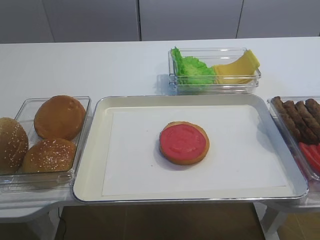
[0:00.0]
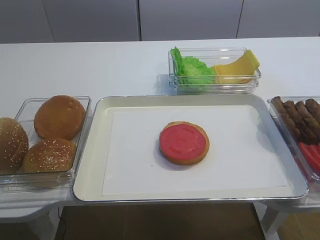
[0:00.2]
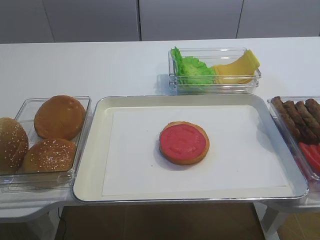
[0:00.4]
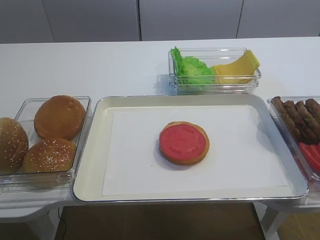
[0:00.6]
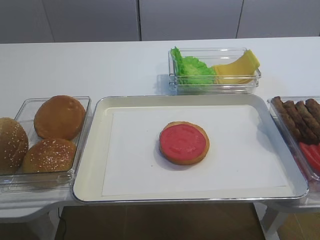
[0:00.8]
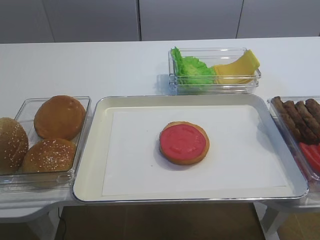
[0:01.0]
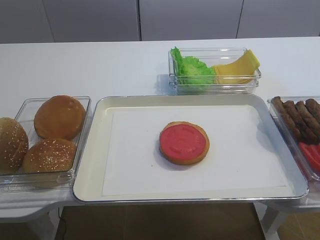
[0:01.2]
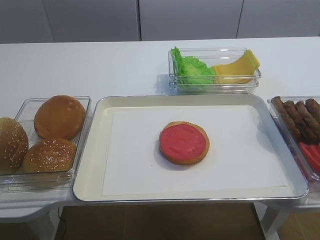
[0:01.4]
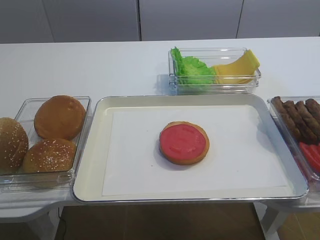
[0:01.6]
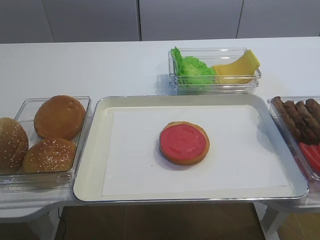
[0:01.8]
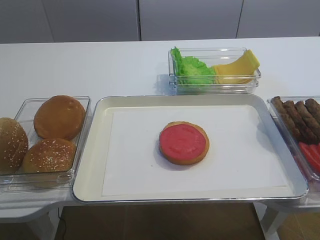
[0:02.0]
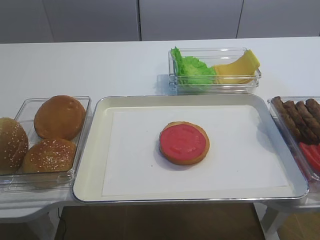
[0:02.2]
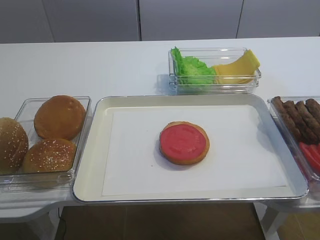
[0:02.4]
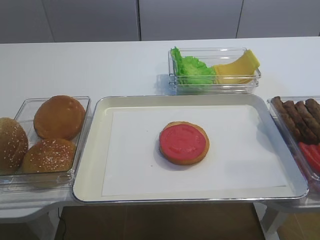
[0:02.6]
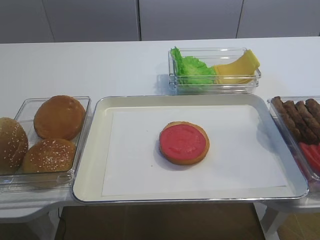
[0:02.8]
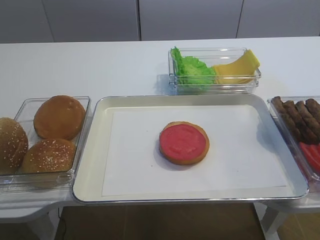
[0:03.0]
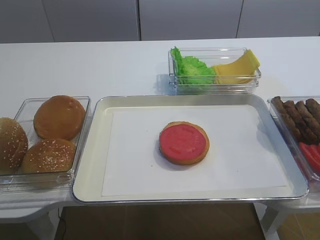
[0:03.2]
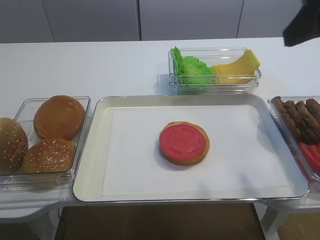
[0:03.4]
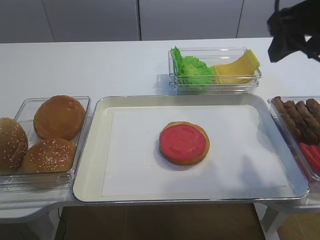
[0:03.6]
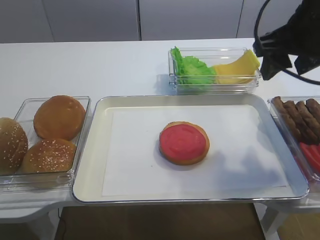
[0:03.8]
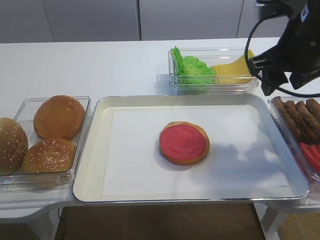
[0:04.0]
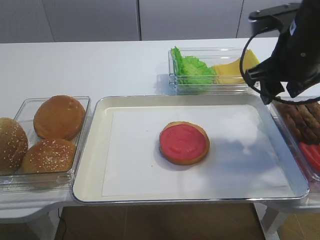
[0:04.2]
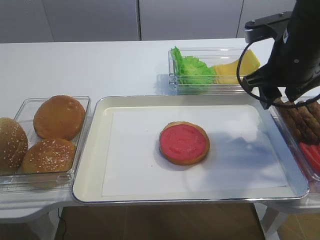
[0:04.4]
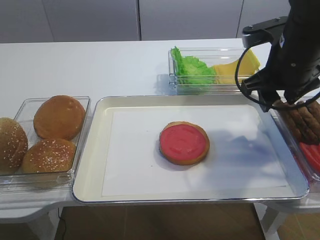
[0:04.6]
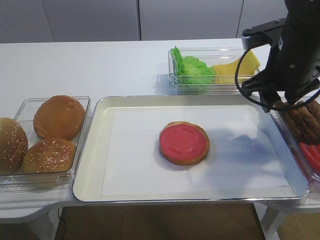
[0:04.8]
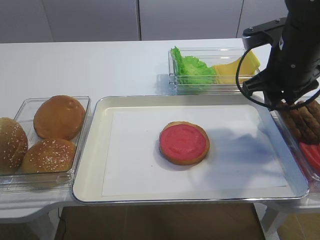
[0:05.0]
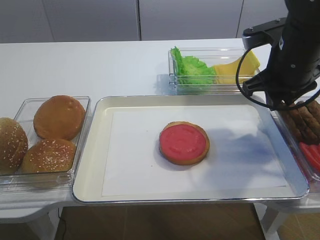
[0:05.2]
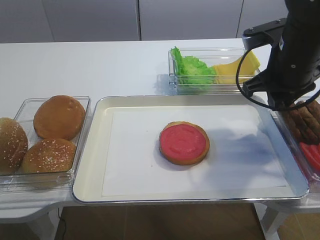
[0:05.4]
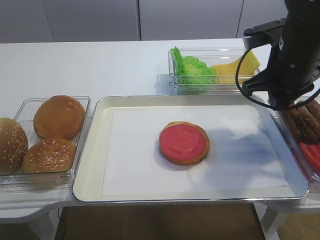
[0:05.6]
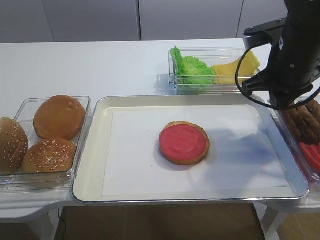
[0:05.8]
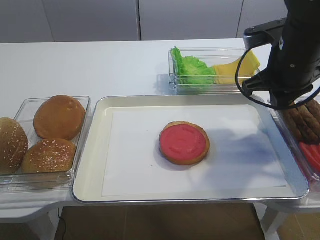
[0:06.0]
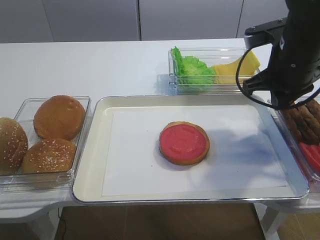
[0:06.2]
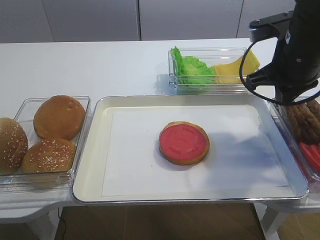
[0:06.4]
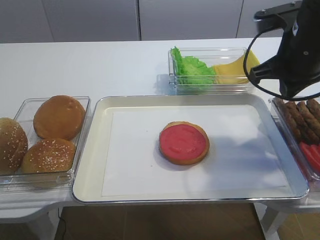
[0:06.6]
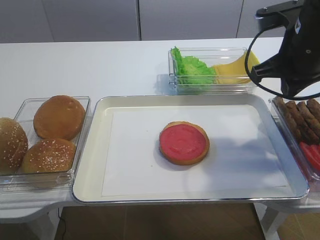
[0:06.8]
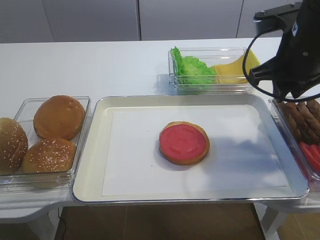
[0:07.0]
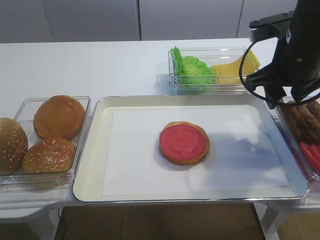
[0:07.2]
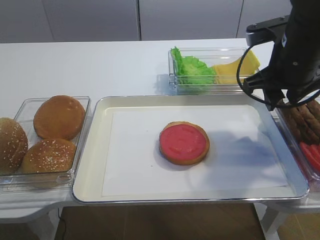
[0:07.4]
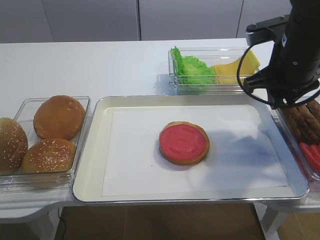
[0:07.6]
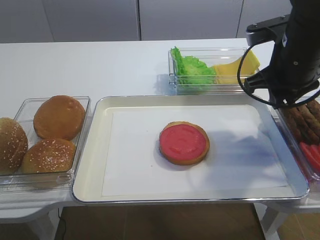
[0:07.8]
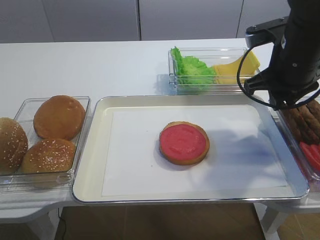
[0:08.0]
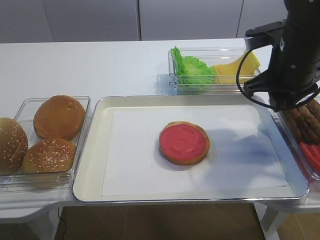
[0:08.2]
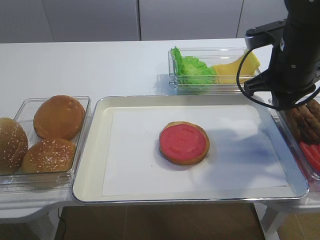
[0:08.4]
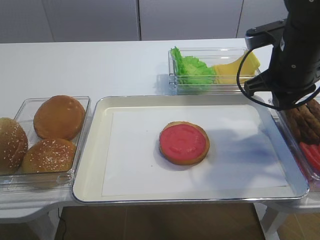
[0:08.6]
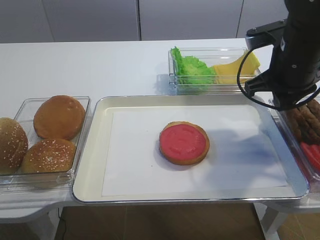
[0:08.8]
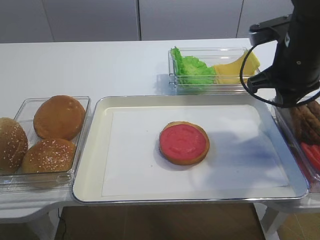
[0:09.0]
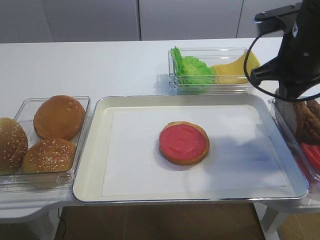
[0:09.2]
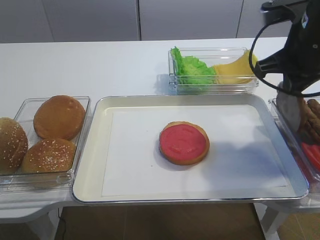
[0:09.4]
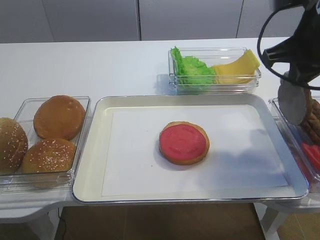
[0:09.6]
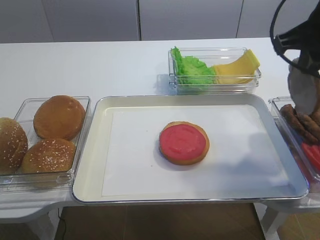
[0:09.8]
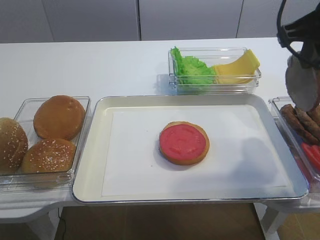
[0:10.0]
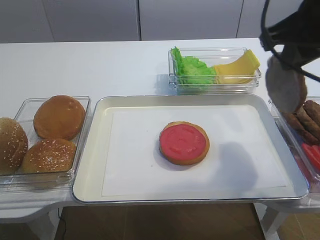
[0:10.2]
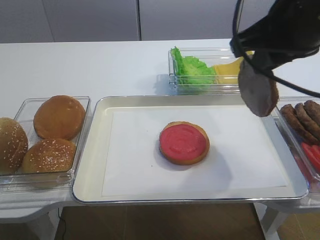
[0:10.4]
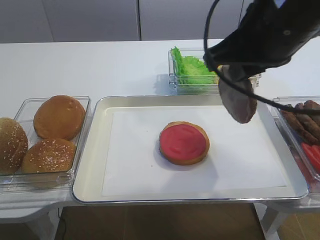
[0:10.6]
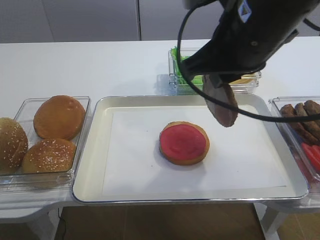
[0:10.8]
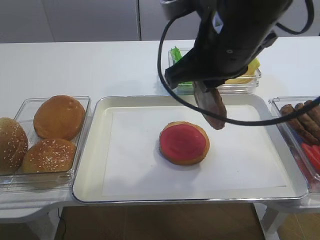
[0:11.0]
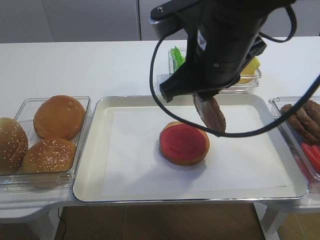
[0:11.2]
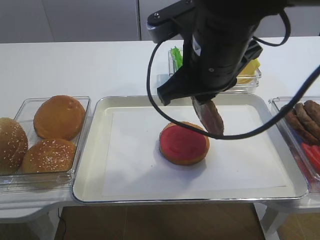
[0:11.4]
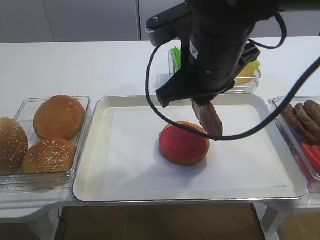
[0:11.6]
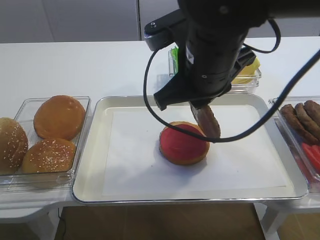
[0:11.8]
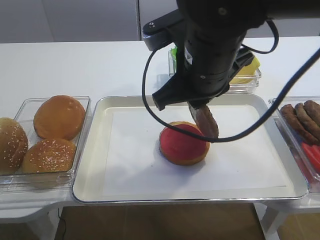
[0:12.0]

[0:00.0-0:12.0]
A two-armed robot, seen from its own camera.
Step, 0:00.0 to 0:09.4: Pick up the cutlet with the right gripper.
0:03.0 to 0:04.4: The right gripper moves forward and downward, about 20 cm.
0:04.4 to 0:06.0: The right gripper closes its fingers.
0:06.0 to 0:07.6: The grippers make only small movements.
0:07.6 to 0:09.0: Both grippers stay put.
0:09.0 to 0:10.4: The right gripper goes roughly 10 cm upward and backward.
0:10.4 to 0:12.0: The right gripper shifts some 10 cm to the left and downward.

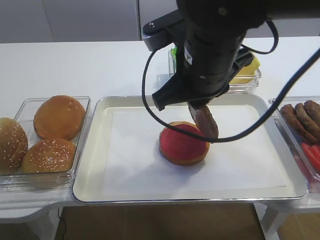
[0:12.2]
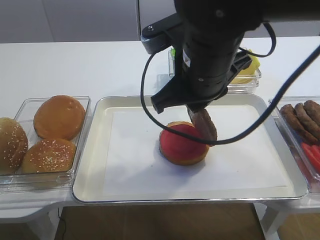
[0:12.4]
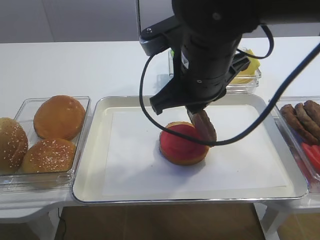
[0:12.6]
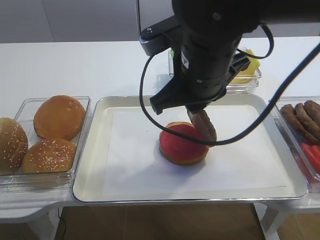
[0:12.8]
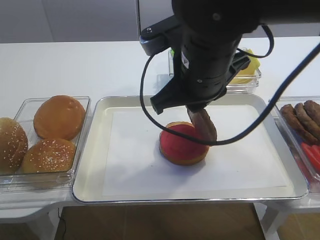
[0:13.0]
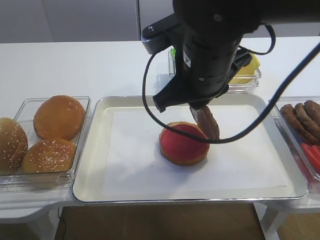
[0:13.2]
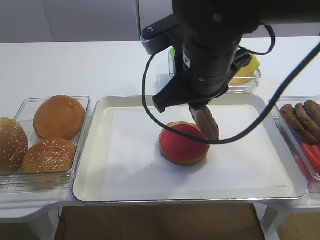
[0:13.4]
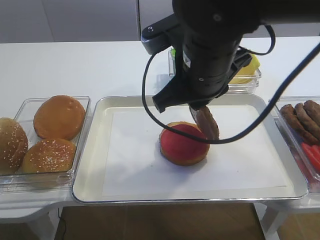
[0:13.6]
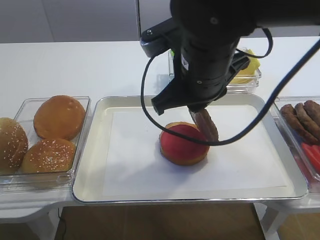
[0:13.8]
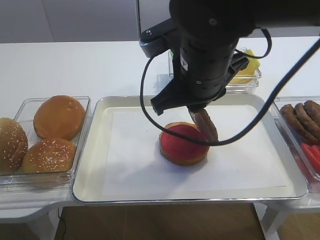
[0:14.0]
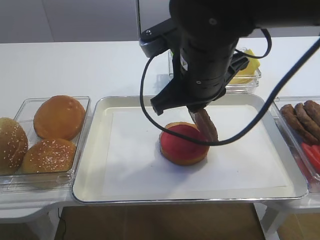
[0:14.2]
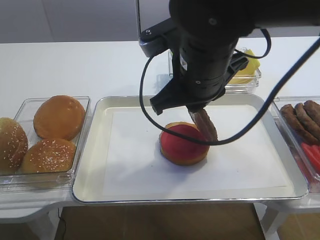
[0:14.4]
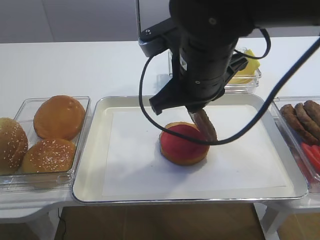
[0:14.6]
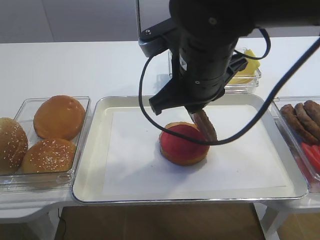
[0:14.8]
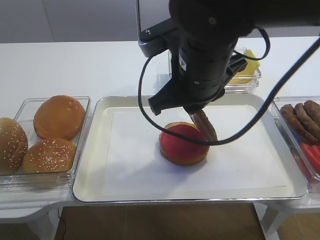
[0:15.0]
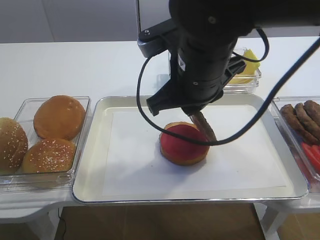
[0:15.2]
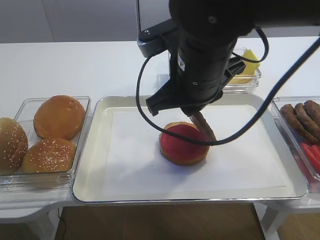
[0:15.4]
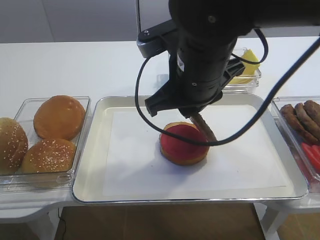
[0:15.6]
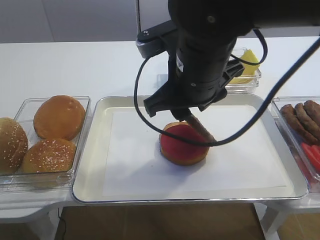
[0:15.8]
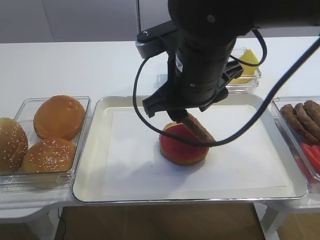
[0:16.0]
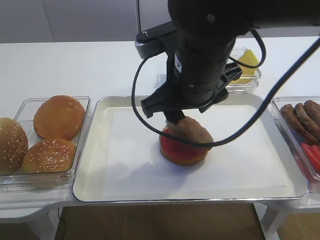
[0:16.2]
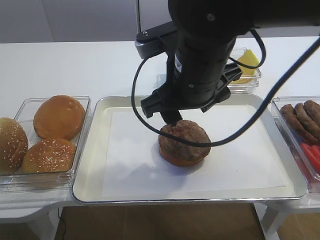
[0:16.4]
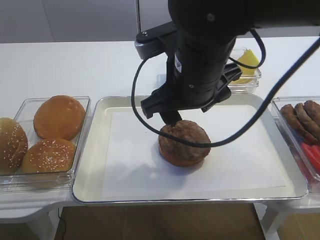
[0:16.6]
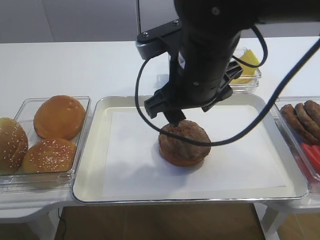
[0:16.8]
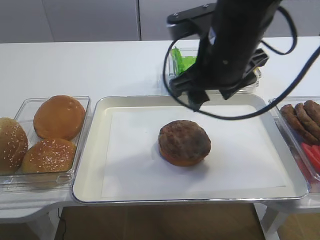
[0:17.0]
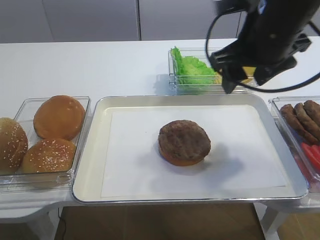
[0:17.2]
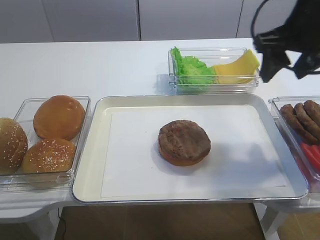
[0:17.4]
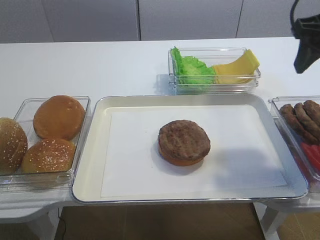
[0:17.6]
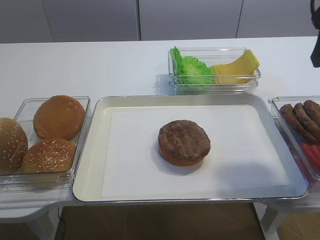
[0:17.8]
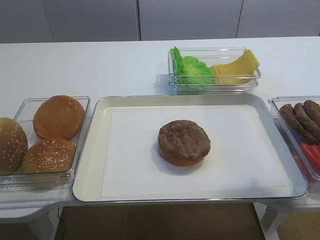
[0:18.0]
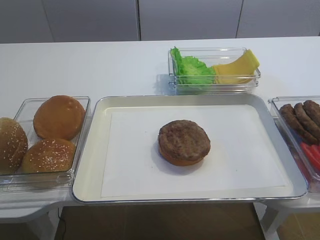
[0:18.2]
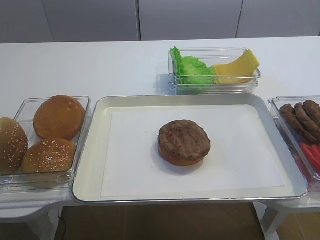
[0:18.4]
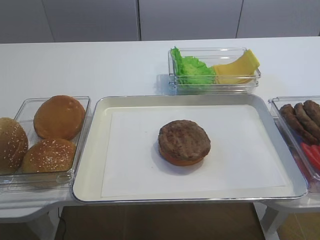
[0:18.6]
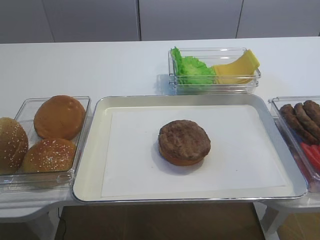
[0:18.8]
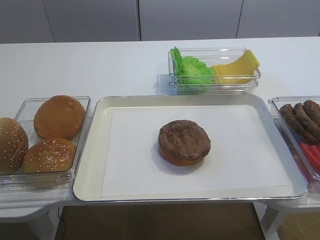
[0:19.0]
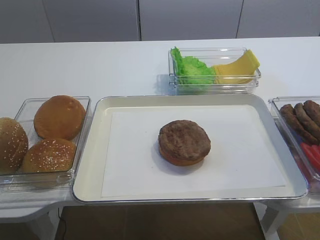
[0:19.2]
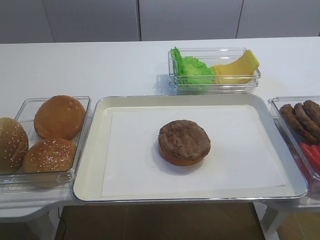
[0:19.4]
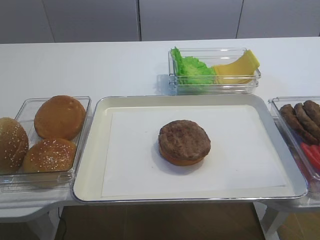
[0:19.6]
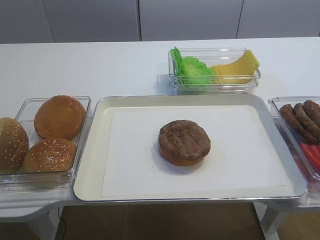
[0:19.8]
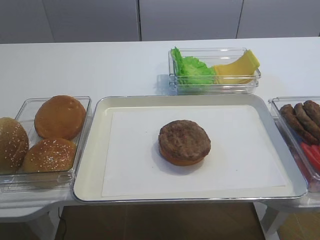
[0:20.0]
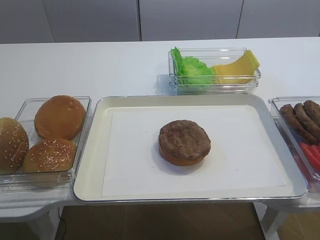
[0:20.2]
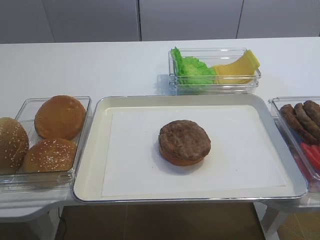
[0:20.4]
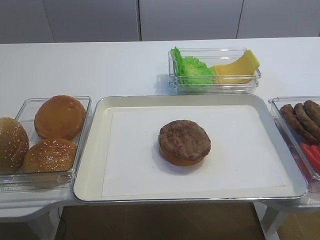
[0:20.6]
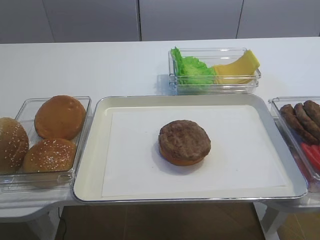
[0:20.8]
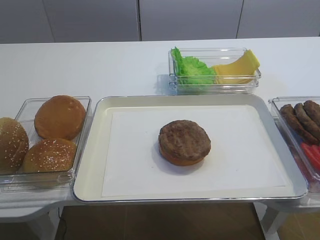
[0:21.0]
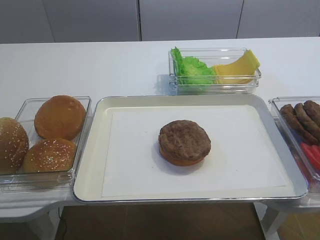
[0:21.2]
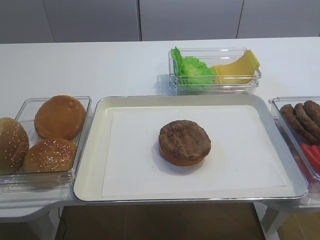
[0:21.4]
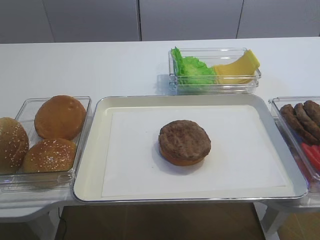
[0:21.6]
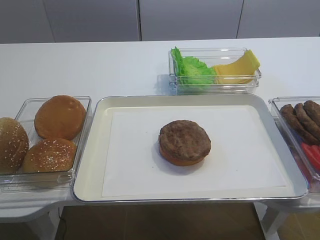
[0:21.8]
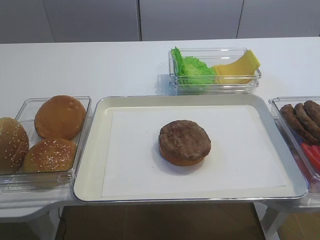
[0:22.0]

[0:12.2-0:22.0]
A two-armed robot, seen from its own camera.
Step, 0:12.2 to 0:16.6: Place the cutlet on the tomato slice with the right gripper.
0:12.2 to 0:15.0: Both grippers stay about where they are.
0:15.0 to 0:16.4: The right gripper opens its fingers.
0:16.4 to 0:17.8: The right gripper moves to the right, some 20 cm.
0:17.8 to 0:19.2: The right gripper heads backward, covering about 20 cm.

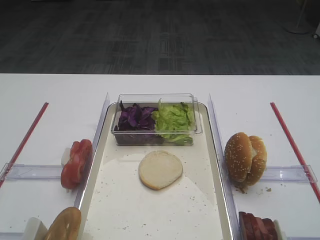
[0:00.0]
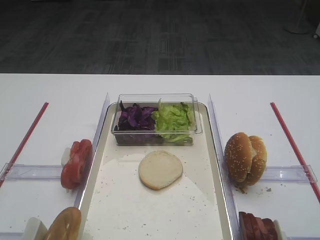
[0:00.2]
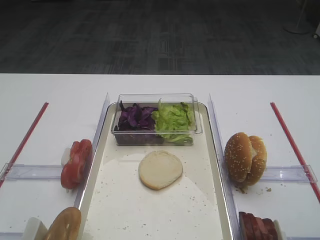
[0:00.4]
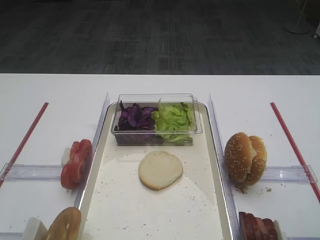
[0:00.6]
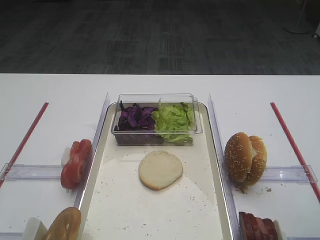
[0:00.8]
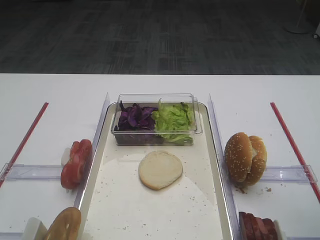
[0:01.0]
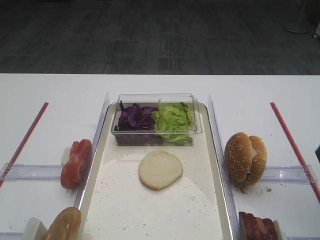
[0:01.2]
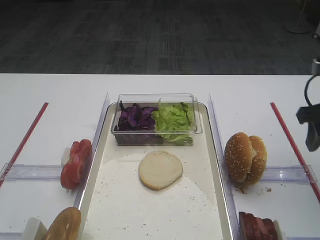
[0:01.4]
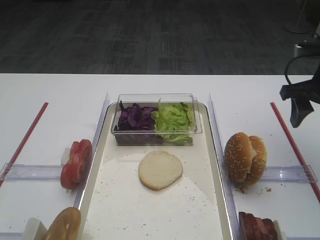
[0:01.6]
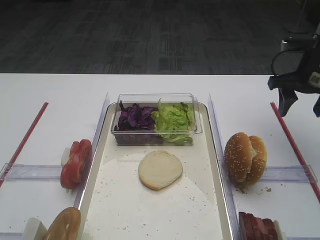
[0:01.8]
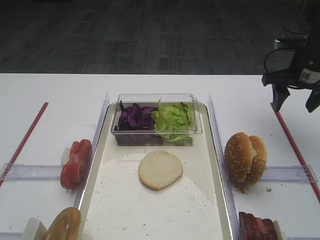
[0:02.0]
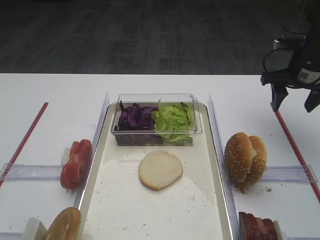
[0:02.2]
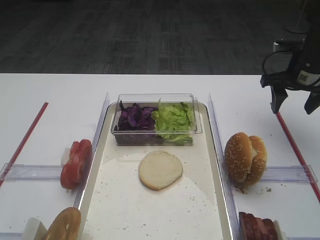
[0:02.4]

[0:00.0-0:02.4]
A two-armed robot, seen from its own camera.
0:00.0 to 0:01.2: The right gripper is displaced forward by roughly 10 cm.
0:01.2 to 0:02.4: The right gripper shifts approximately 20 cm forward.
